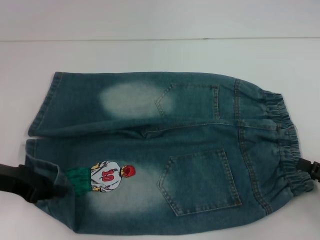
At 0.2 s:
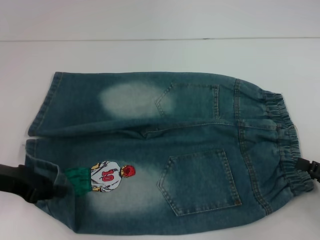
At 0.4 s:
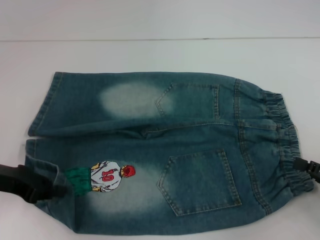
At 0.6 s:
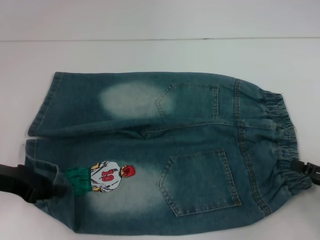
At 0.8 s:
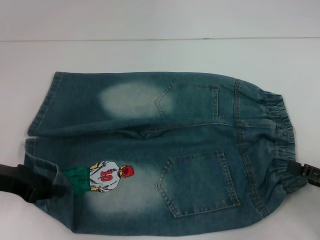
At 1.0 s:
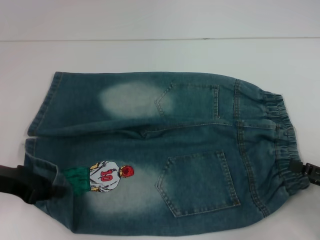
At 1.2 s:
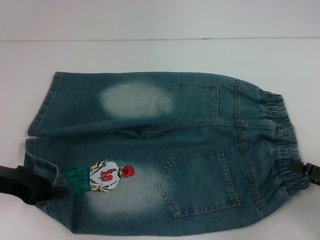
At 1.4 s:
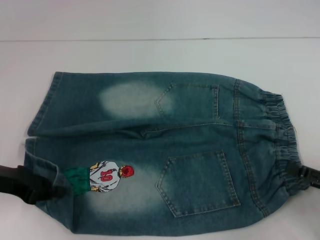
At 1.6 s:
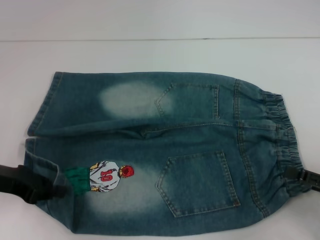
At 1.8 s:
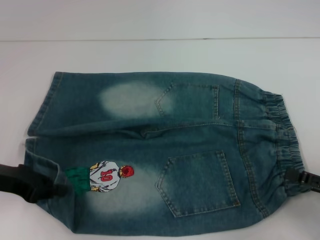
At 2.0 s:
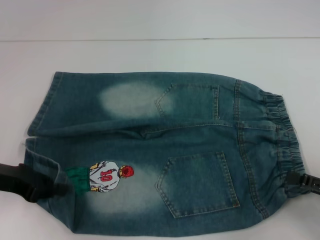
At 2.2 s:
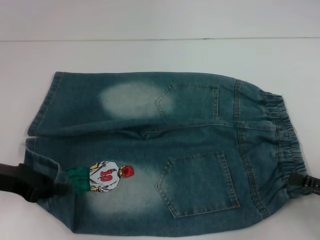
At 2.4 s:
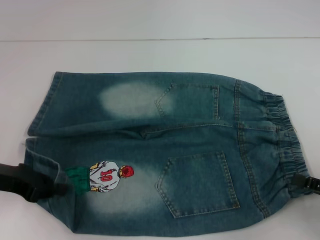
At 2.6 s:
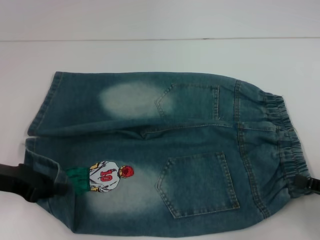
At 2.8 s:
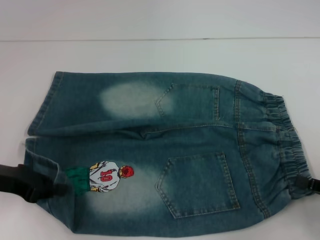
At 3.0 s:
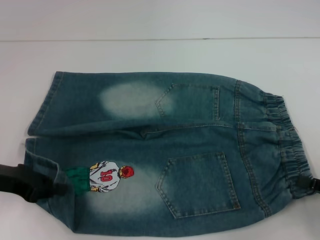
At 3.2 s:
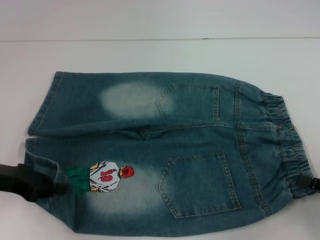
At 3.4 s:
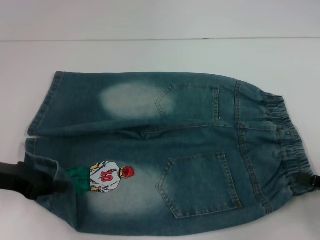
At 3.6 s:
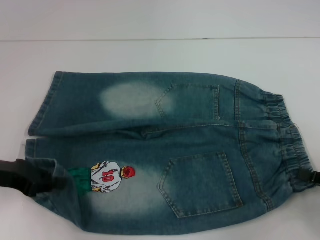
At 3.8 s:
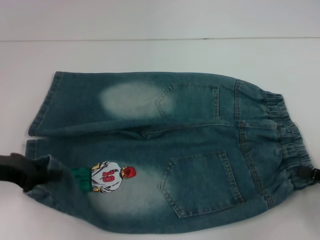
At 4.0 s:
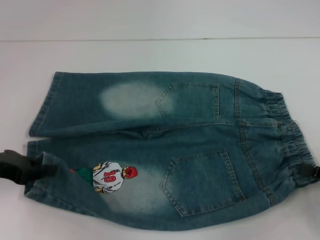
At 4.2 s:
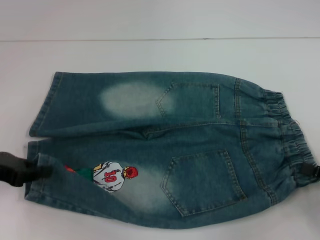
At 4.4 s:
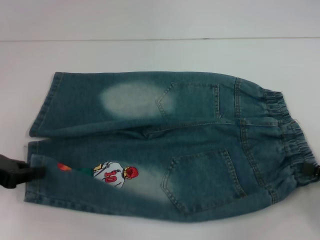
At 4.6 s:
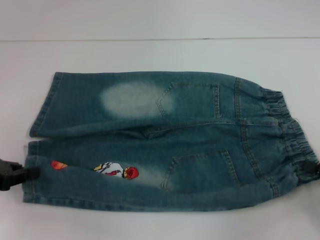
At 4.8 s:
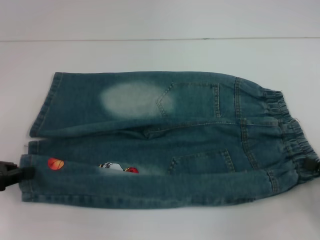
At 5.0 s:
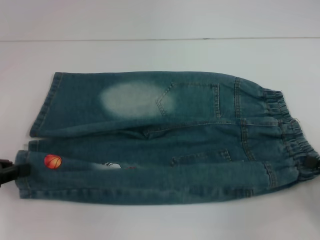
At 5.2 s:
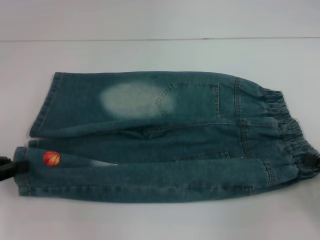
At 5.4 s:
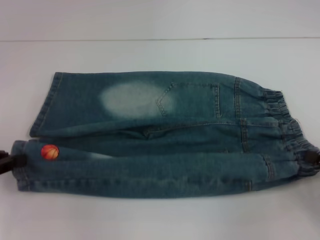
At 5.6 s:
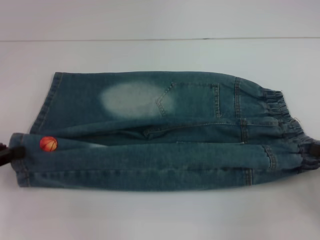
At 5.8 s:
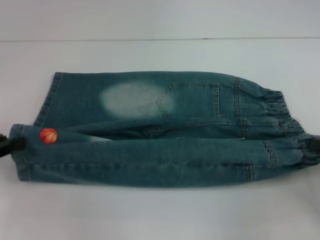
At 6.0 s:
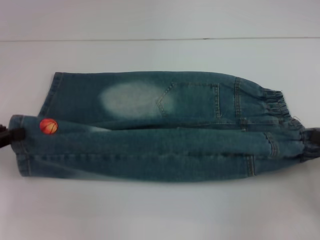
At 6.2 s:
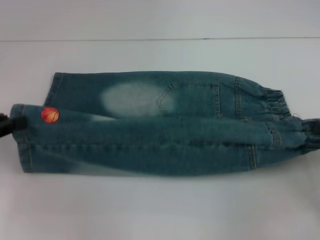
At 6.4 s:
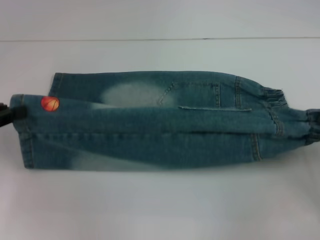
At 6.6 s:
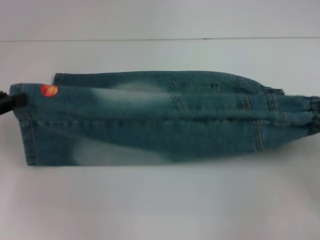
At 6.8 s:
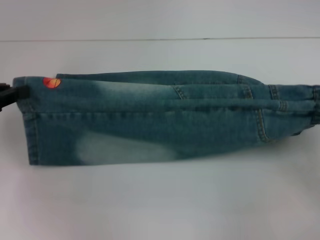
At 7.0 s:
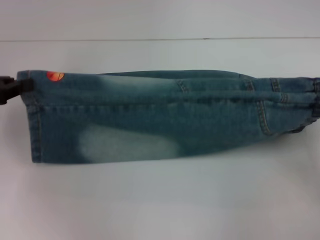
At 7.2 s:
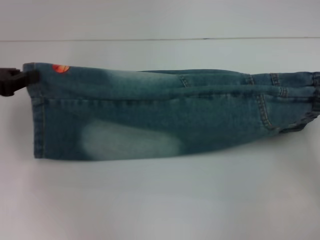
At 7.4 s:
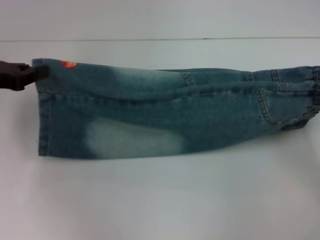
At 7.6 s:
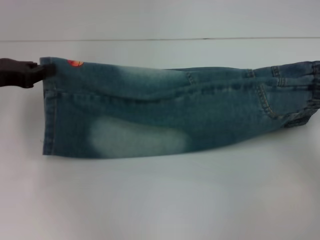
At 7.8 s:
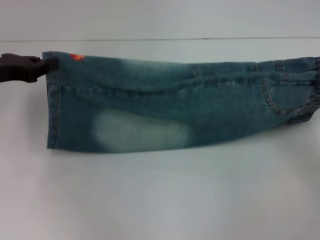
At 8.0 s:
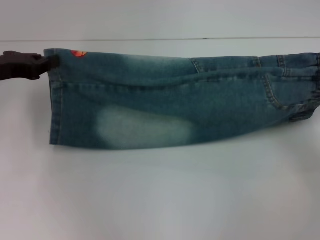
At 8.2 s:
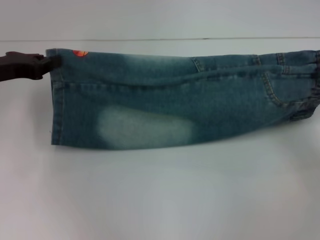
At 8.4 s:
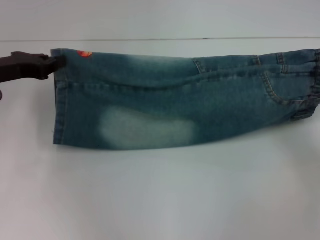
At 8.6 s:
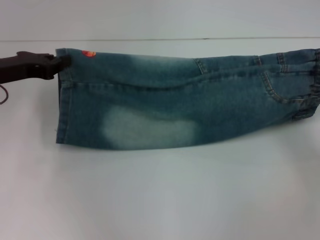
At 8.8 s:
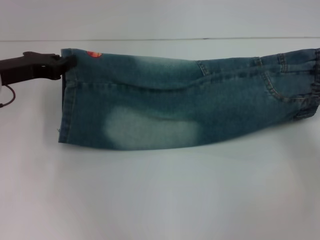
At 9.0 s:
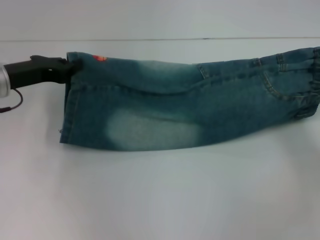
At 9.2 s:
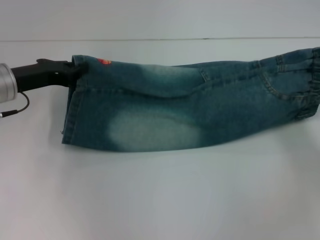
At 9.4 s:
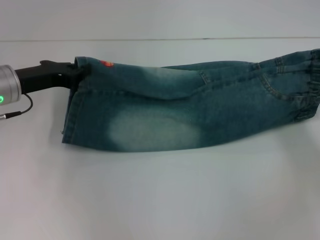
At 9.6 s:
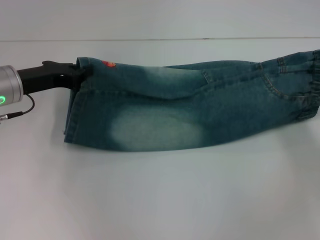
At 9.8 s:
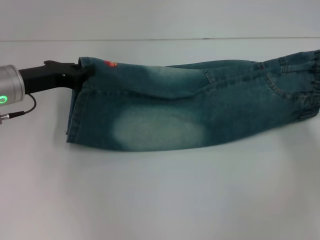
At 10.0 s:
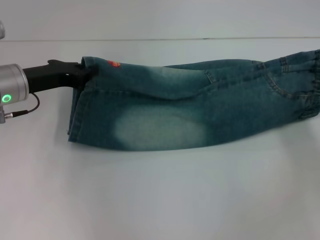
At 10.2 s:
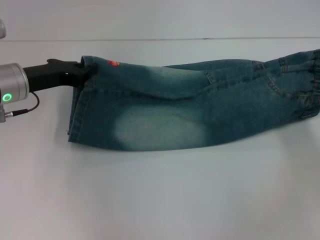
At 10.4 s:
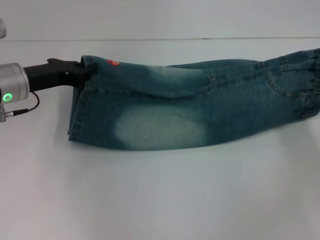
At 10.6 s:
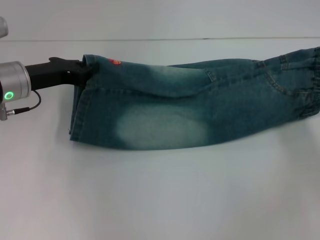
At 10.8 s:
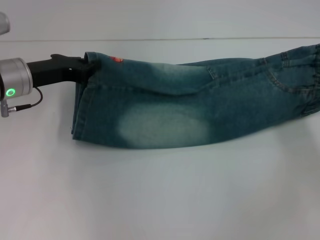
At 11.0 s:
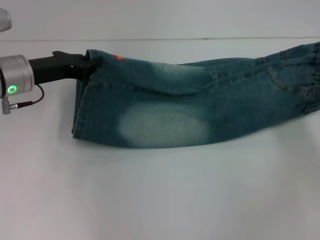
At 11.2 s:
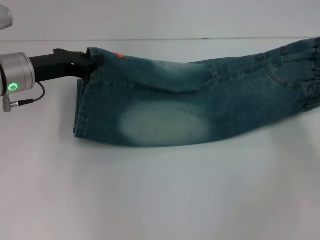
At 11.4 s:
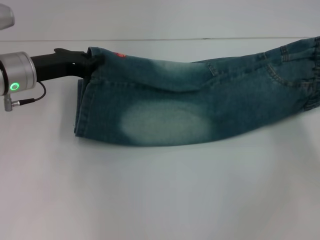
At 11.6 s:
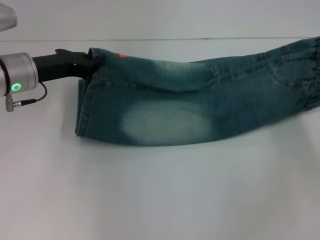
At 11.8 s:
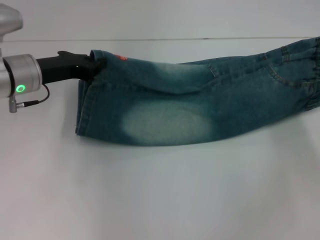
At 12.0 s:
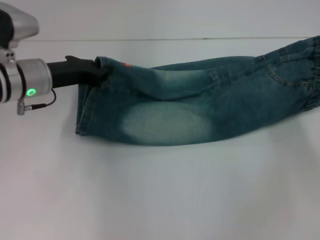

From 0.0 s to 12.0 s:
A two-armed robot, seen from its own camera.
Step, from 0.0 s to 4.2 s: Hold the lower right waistband with your right hand.
From 0.0 s to 1.6 s: The grippers move only a little.
From 1.6 s to 3.0 s: The right gripper closes.
From 3.0 s to 4.4 s: The grippers make only small movements.
From 6.0 s to 7.6 s: The grippers both shift forward by roughly 10 cm.
From 7.6 s to 9.0 s: The left gripper shifts by roughly 5 cm.
From 9.0 s to 12.0 s: There are only small adjustments of the grippers.

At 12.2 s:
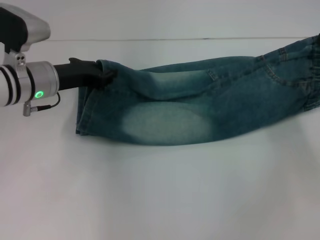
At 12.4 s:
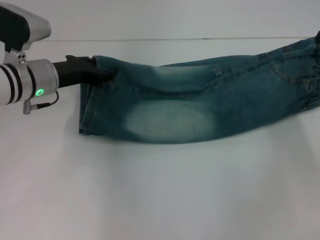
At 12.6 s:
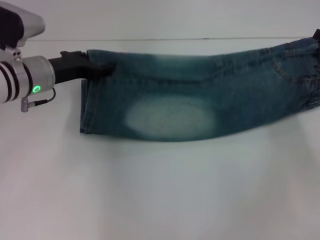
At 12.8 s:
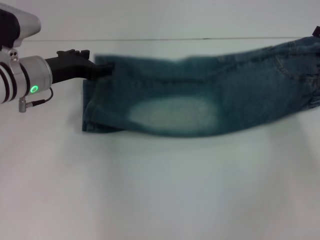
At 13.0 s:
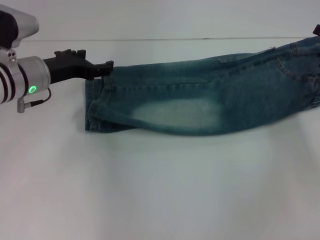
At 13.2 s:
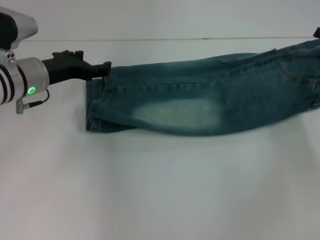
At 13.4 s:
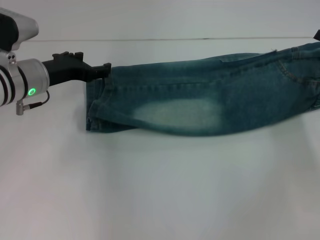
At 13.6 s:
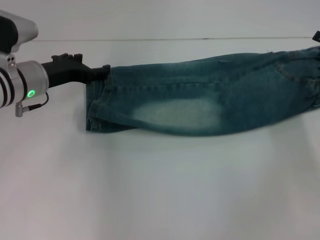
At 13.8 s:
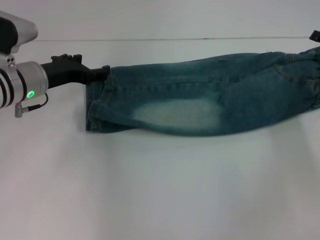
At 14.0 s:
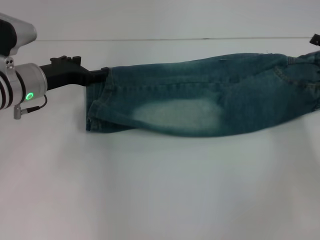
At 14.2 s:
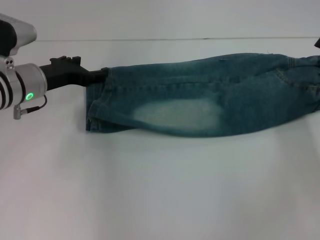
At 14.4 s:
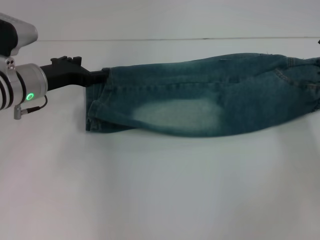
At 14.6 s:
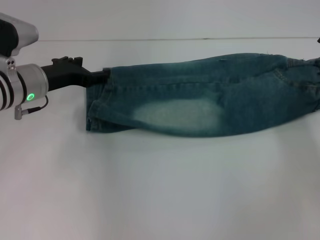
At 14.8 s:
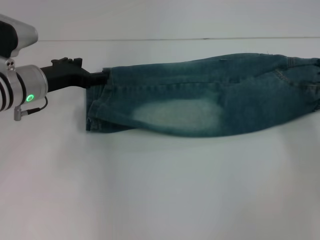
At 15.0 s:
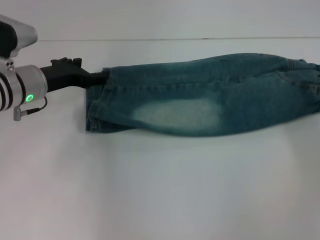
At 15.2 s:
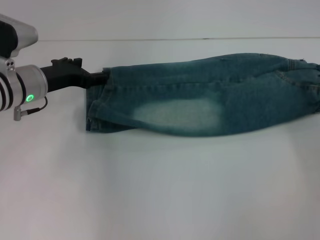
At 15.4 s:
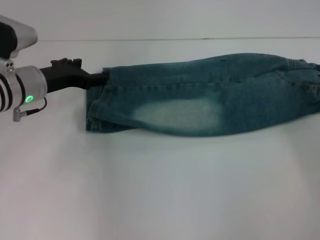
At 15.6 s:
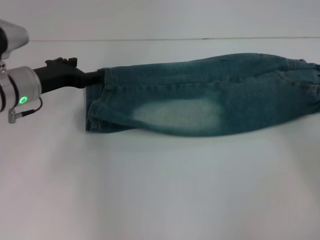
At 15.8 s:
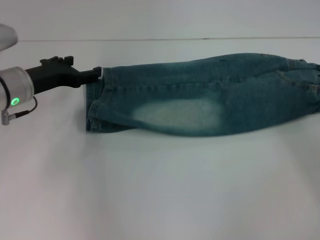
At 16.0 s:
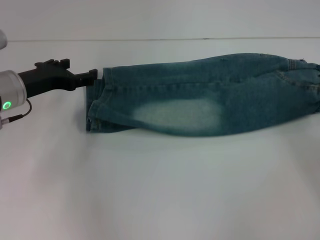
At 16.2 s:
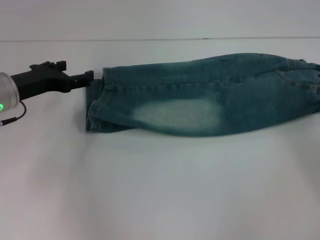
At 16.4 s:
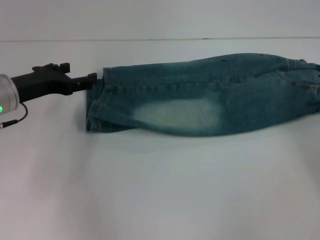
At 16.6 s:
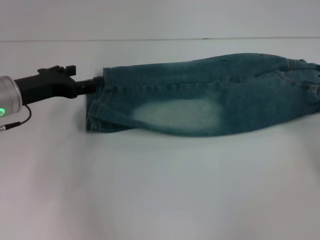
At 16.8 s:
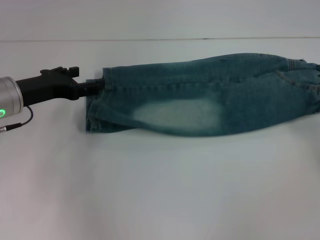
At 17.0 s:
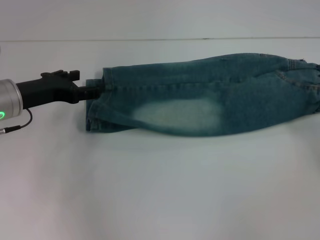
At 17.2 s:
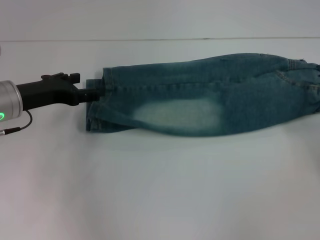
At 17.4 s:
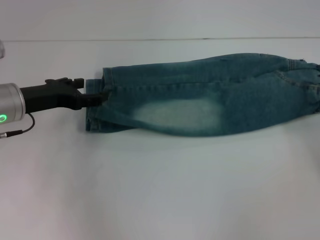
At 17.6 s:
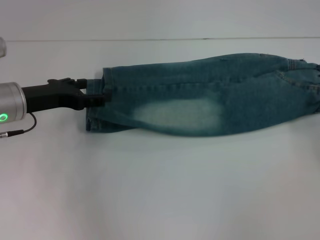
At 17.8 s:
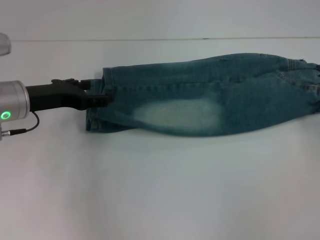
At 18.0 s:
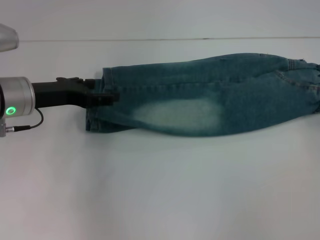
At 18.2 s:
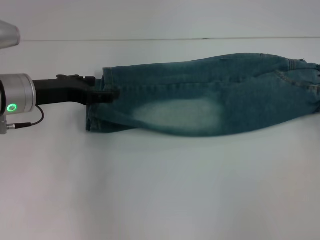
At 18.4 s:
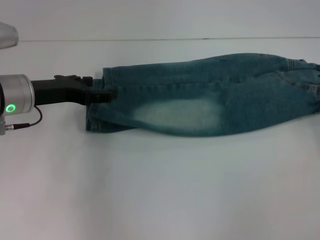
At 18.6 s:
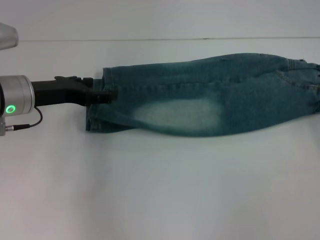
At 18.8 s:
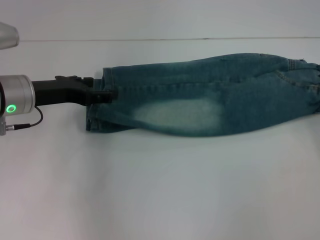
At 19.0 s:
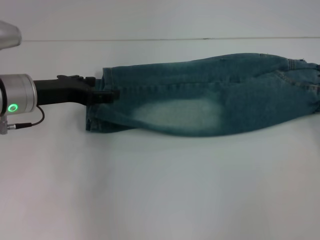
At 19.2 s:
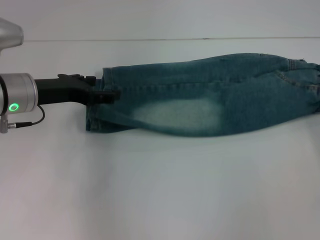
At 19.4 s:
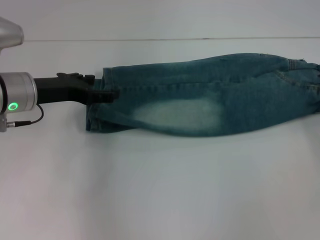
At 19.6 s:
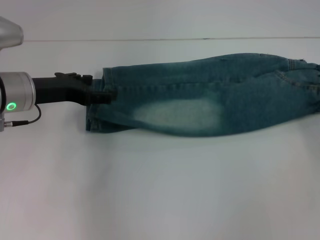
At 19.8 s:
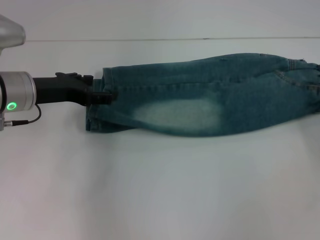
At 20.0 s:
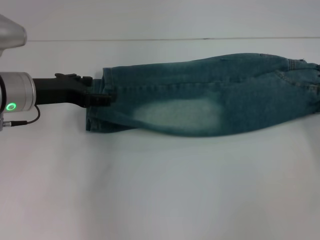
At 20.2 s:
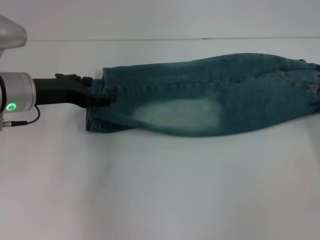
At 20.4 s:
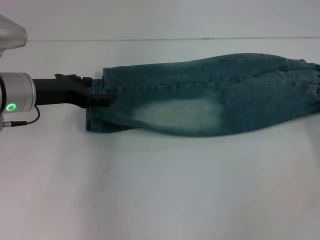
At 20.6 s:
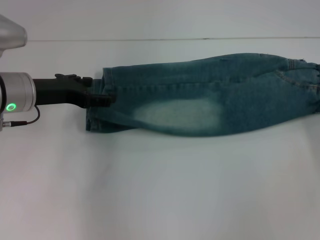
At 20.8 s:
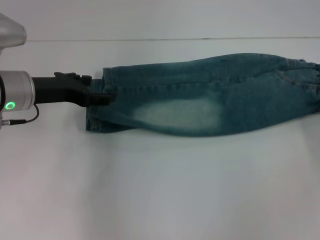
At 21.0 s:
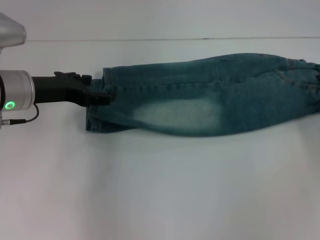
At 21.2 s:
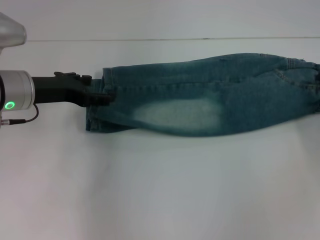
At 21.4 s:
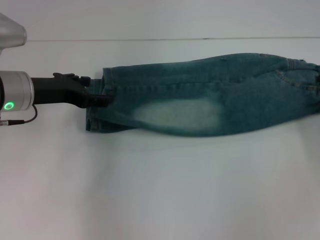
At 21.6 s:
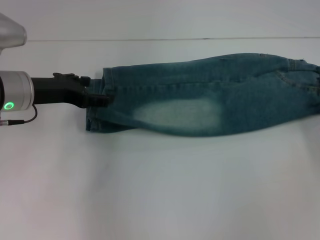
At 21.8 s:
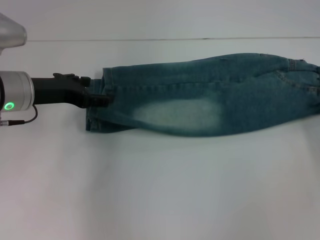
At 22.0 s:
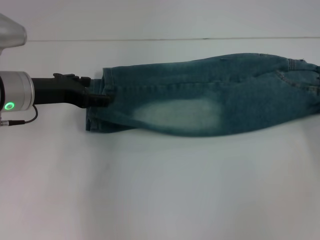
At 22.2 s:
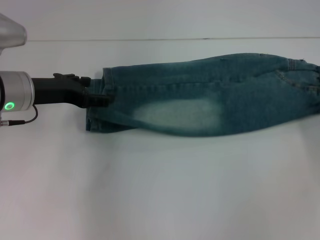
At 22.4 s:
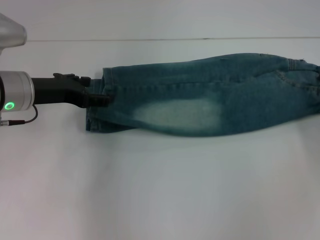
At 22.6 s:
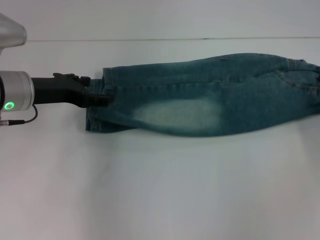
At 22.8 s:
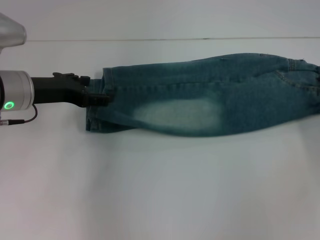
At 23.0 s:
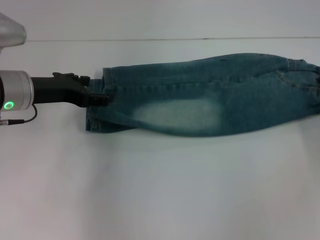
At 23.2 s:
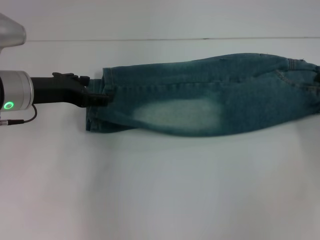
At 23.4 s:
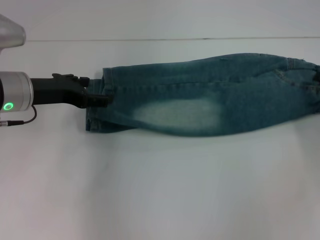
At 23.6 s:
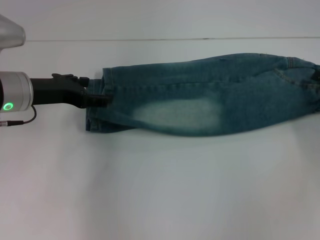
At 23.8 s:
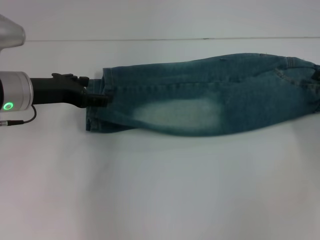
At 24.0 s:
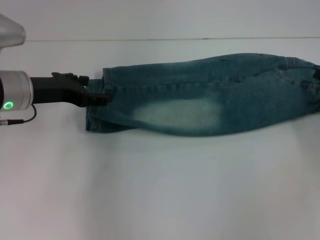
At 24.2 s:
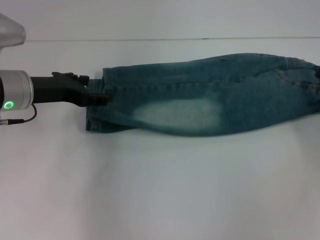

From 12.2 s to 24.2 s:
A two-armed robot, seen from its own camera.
Step, from 13.2 s to 16.0 s: Fold upward with your right hand.
From 12.2 s to 13.8 s: The right gripper opens; the left gripper opens up.
From 13.8 s to 15.2 s: The right gripper heads backward, covering roughly 5 cm.
From 15.2 s to 16.6 s: The left gripper ends up roughly 5 cm from where it was.
From 16.6 s to 18.2 s: The grippers stay close to where they were, moving slightly.
From 19.8 s to 21.2 s: The grippers move only a little.
From 21.2 s to 24.2 s: Both grippers stay put.
